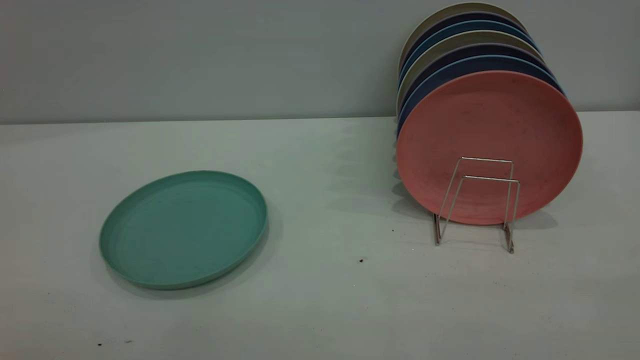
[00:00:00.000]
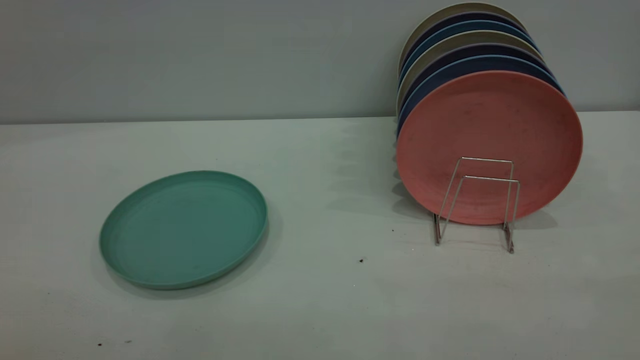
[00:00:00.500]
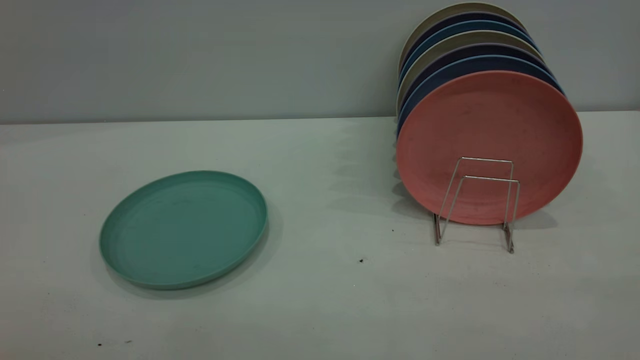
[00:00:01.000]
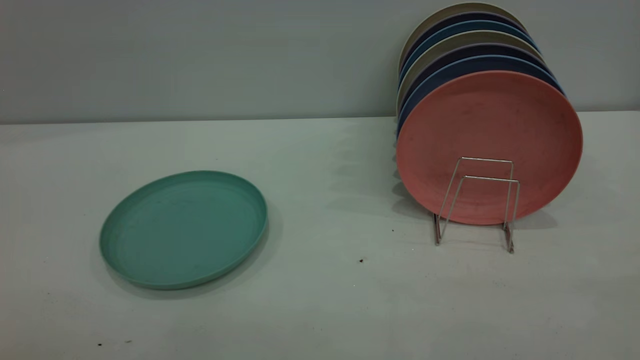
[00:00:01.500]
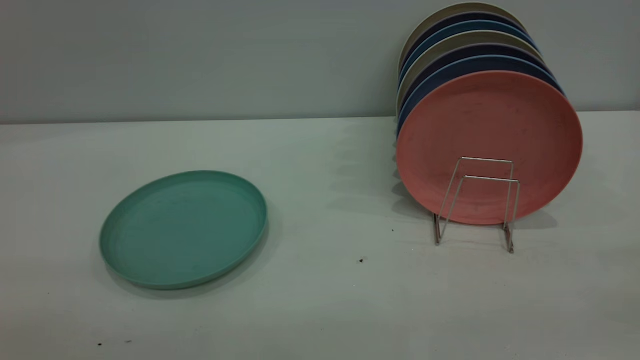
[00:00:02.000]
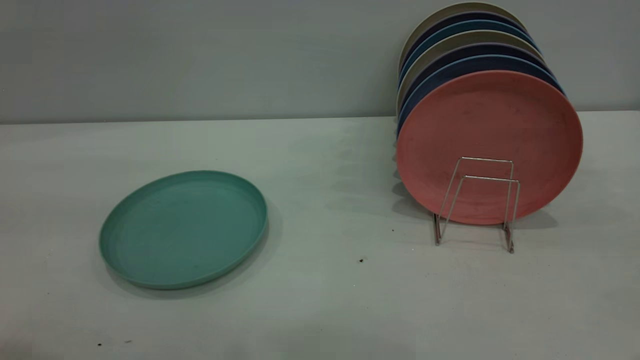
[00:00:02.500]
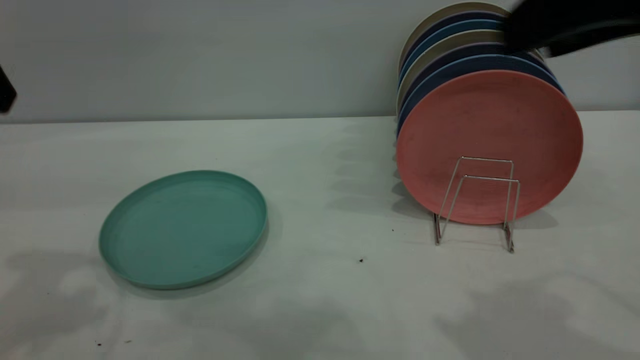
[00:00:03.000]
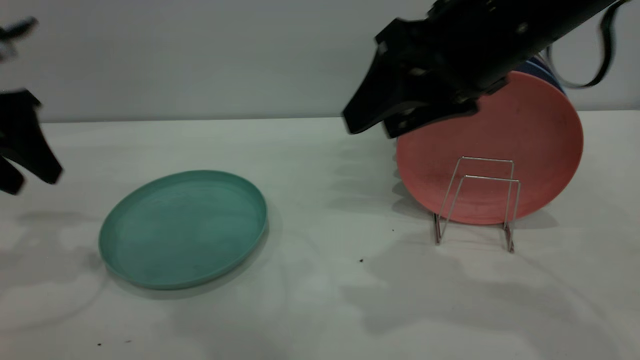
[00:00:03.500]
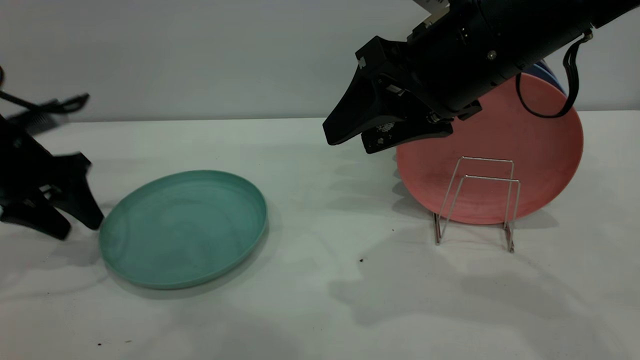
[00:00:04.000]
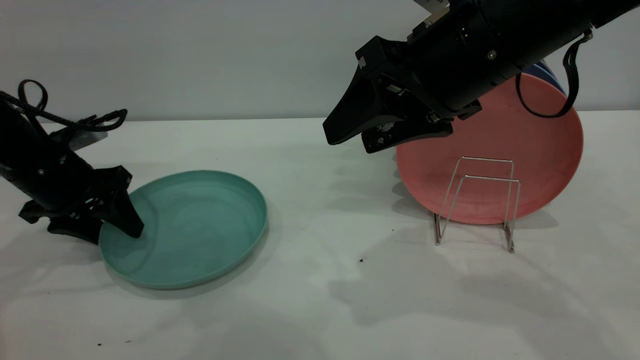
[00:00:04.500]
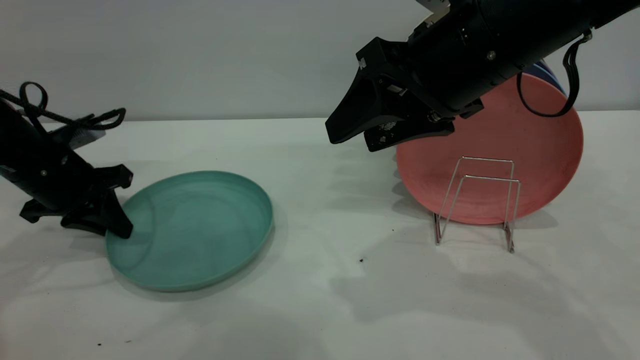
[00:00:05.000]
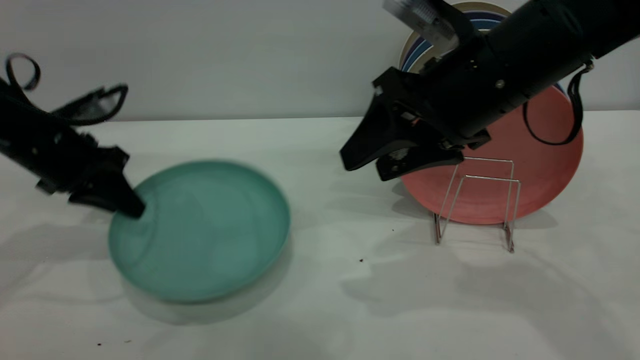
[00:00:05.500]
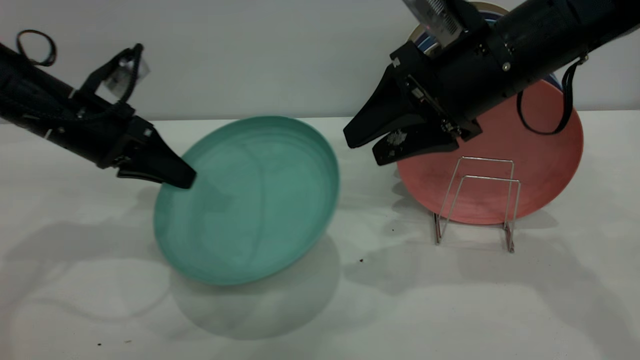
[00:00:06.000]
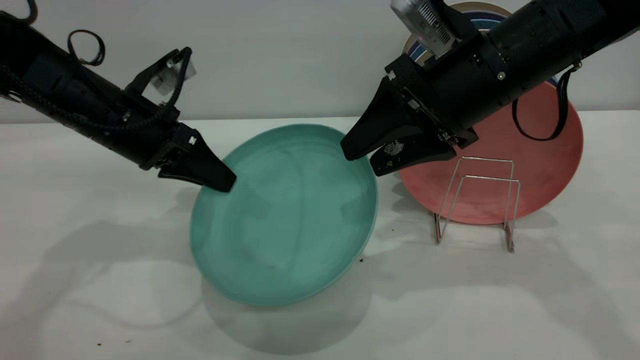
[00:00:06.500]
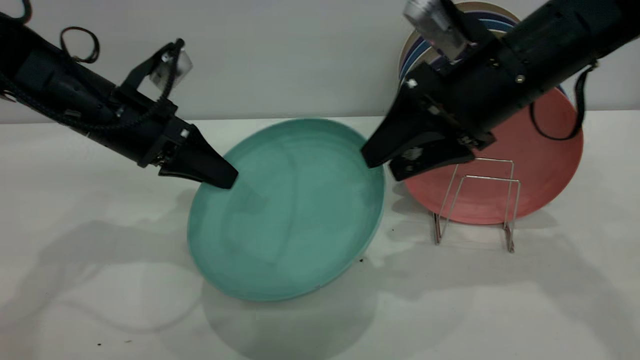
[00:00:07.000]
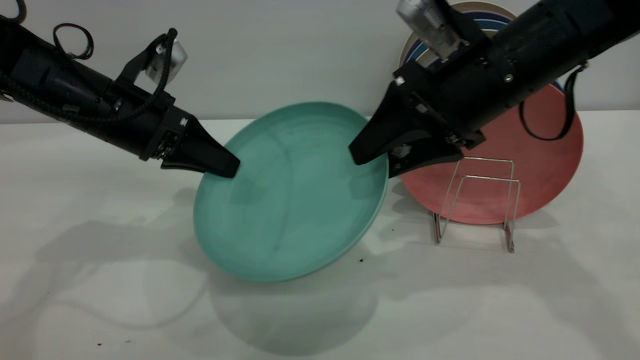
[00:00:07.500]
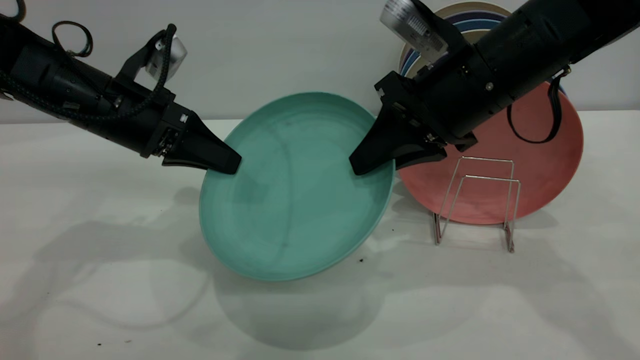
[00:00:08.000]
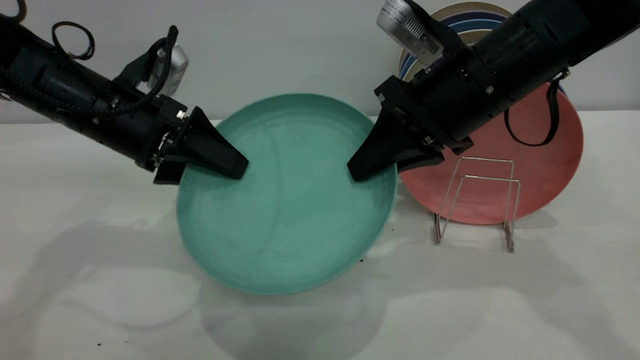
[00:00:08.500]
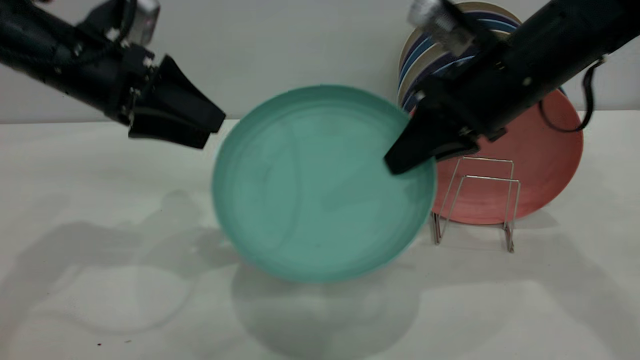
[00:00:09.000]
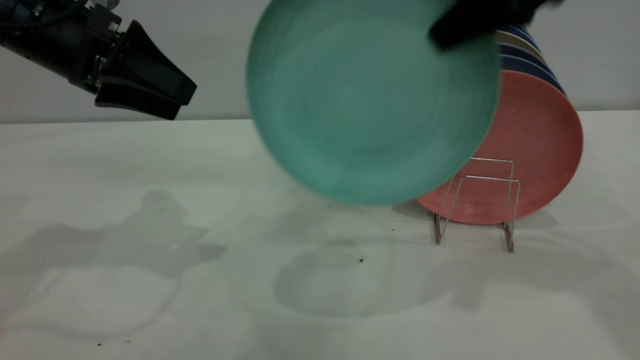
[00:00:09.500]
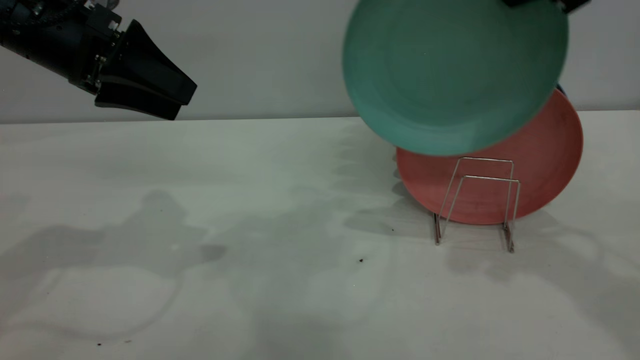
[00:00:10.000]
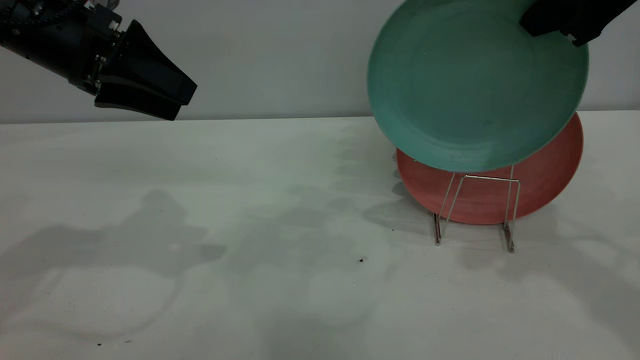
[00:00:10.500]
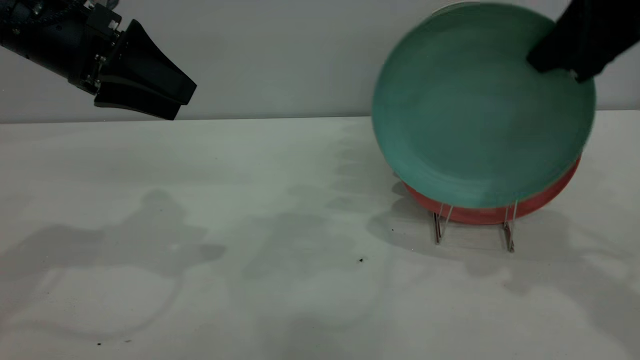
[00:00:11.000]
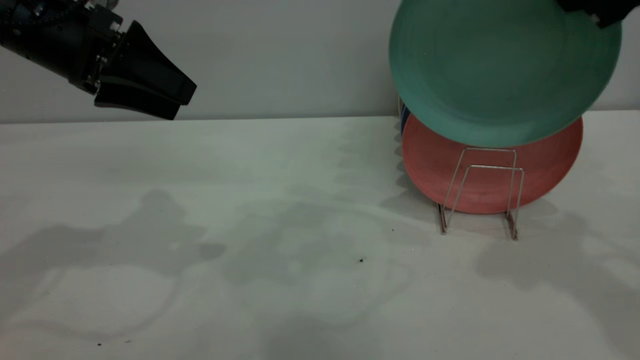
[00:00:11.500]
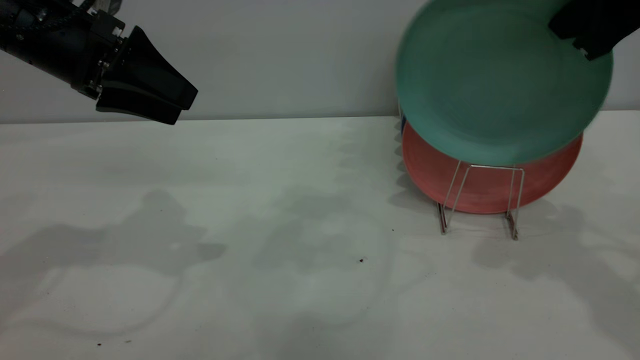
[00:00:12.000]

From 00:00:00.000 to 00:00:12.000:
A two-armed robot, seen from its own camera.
Task of the whole recording: the left gripper grasp the green plate, the left gripper pass the green plate to the right gripper, and the right gripper place the green plate on the plate rack.
Step, from 00:00:00.000 to 00:00:05.500: Pick up the plate with the left gripper.
Step, from 00:00:06.000 to 00:00:09.000: Pass the plate from the left gripper to the right gripper.
From 00:00:02.000 to 00:00:04.000: The right gripper travels forward and to the left by roughly 35 cm; the left gripper moves forward and downward, approximately 50 cm.
From 00:00:04.000 to 00:00:06.000: The right gripper ends up some 5 cm from where it was. Meanwhile the left gripper goes approximately 10 cm to the right, and closes.
From 00:00:06.000 to 00:00:08.000: The right gripper closes its fingers.
From 00:00:08.000 to 00:00:10.000: The left gripper travels upward by roughly 10 cm, and opens up. The right gripper heads upward and to the right, covering roughly 15 cm.
From 00:00:10.000 to 00:00:12.000: The grippers make only small movements.

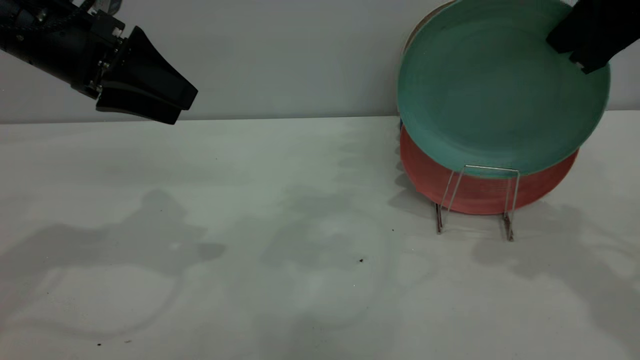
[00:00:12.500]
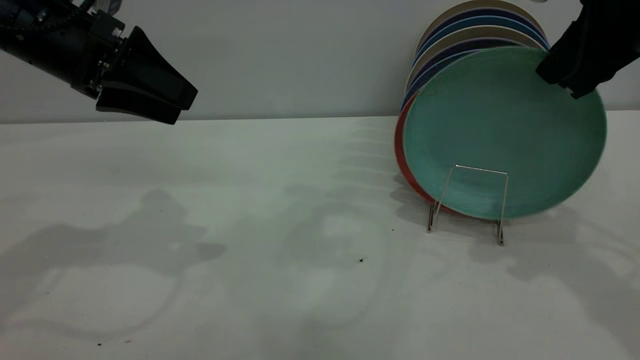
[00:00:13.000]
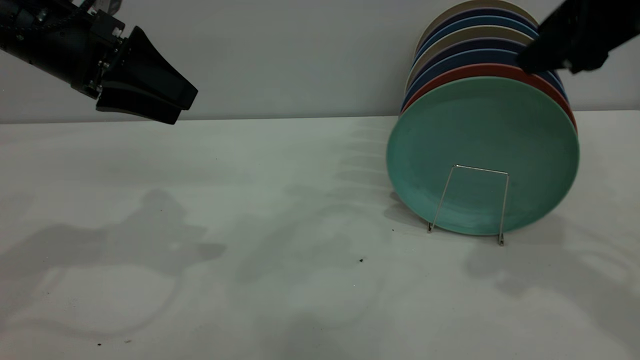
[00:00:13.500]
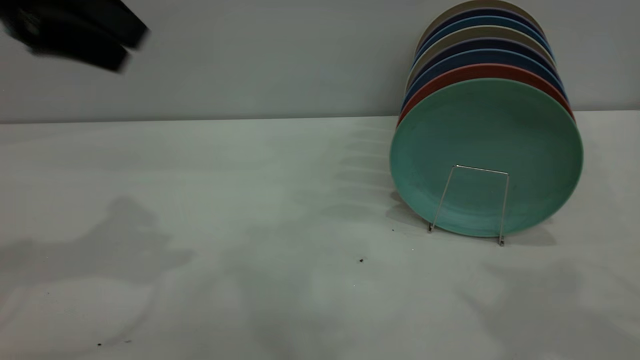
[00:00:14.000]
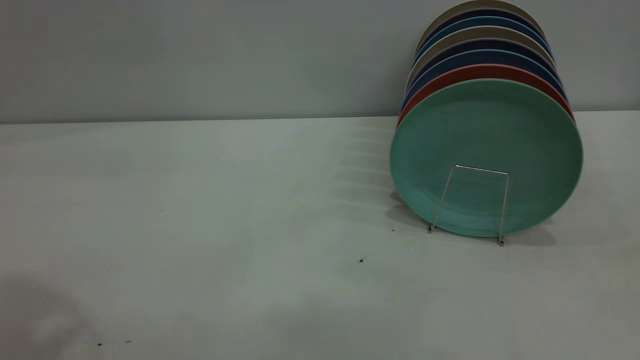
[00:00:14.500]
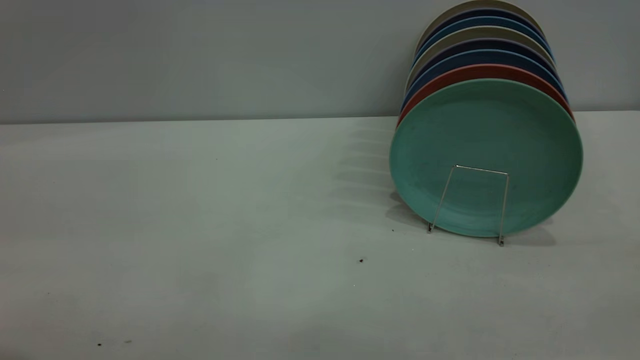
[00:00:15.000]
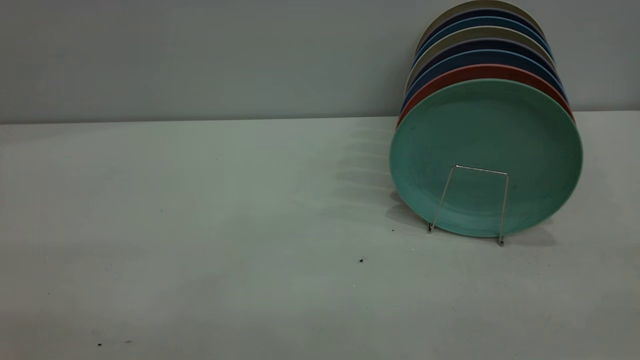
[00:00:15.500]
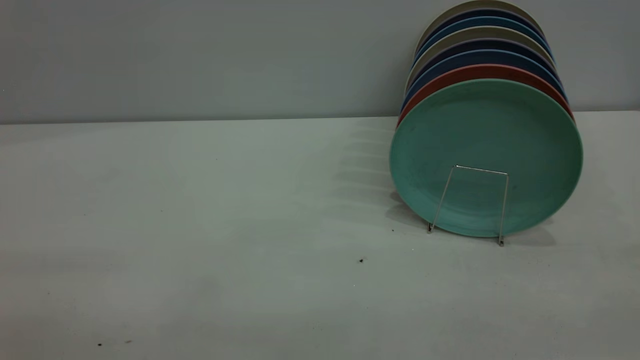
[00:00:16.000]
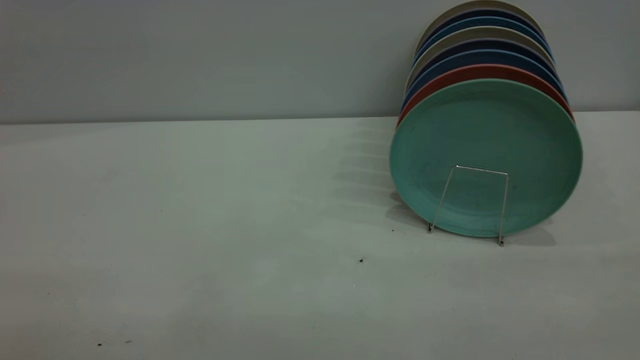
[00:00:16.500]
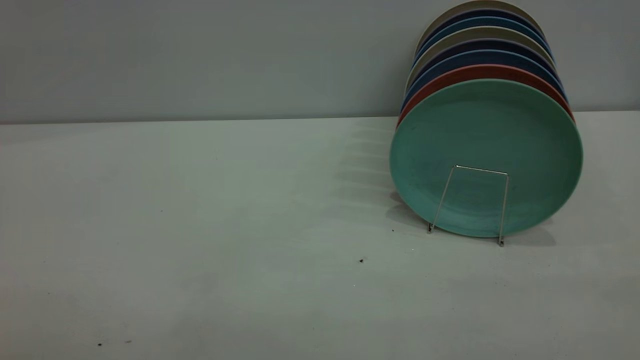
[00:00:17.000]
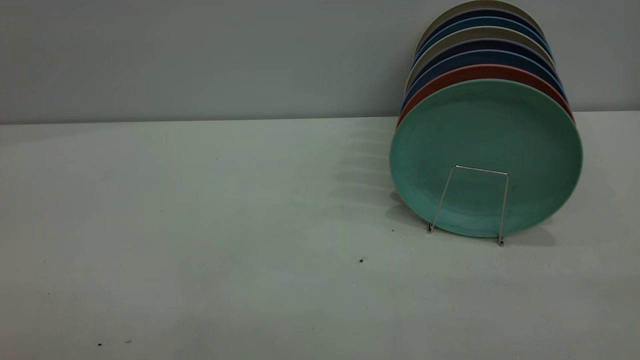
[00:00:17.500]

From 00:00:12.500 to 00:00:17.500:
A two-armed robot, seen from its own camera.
Task of the whole recording: the left gripper grasp the green plate, the left gripper pass the green plate to the right gripper, and the right gripper place the green plate on the plate rack.
From 00:00:12.500 to 00:00:15.000: The left gripper shifts about 30 cm backward and upward. The right gripper heads backward, covering approximately 30 cm, and opens.
